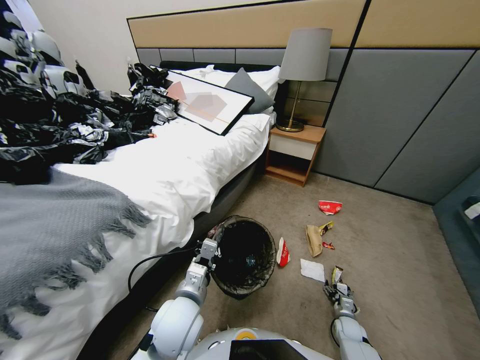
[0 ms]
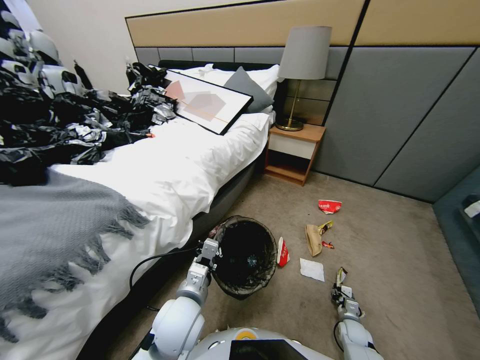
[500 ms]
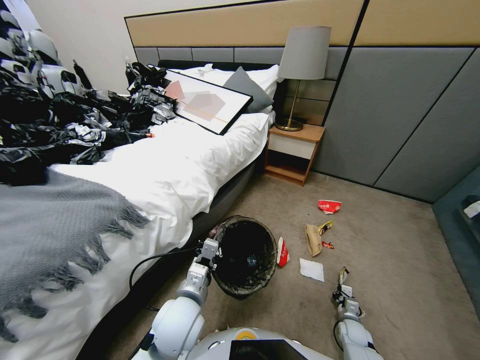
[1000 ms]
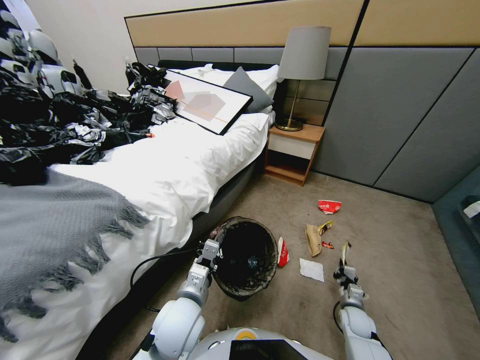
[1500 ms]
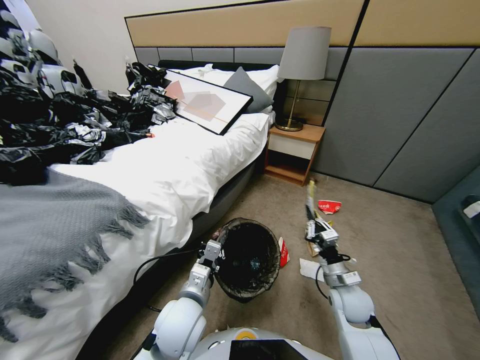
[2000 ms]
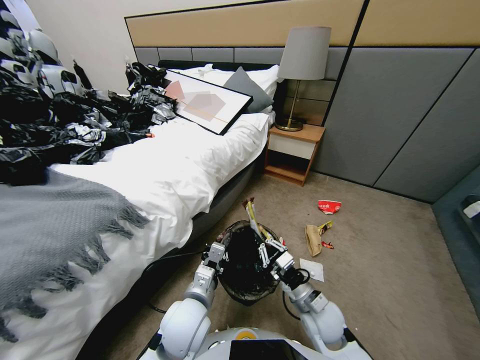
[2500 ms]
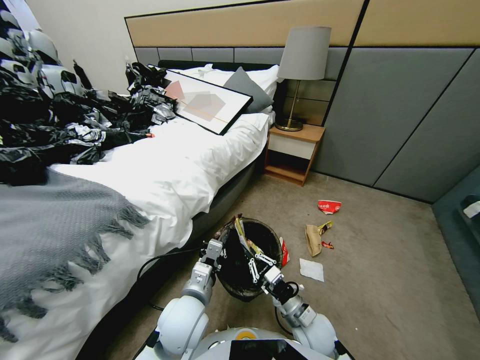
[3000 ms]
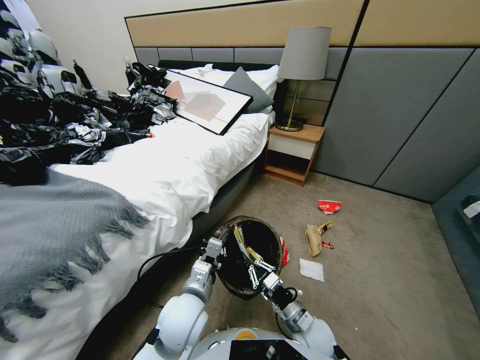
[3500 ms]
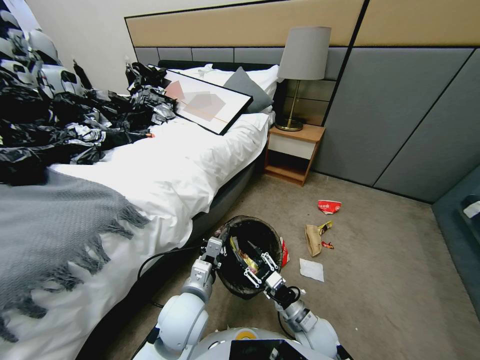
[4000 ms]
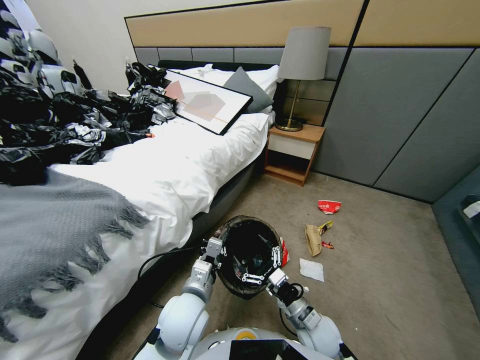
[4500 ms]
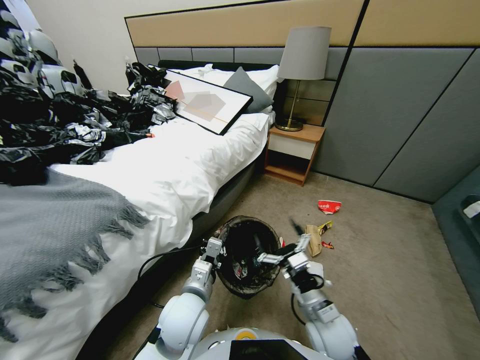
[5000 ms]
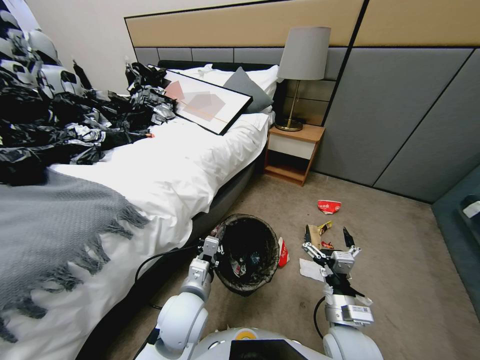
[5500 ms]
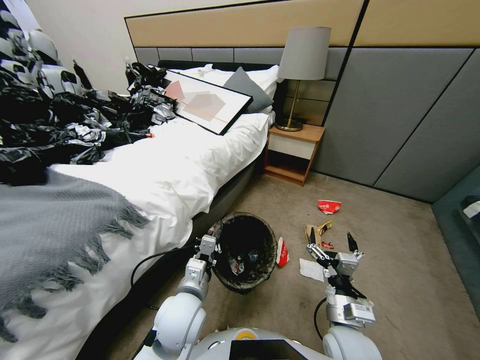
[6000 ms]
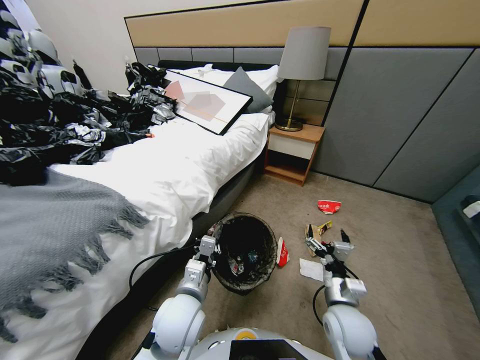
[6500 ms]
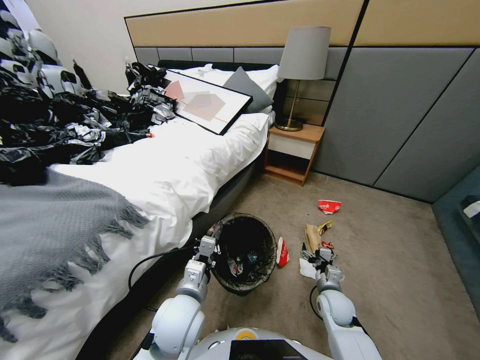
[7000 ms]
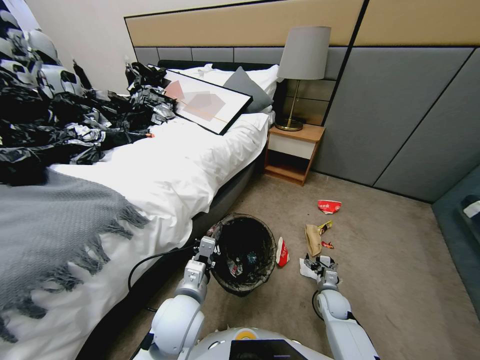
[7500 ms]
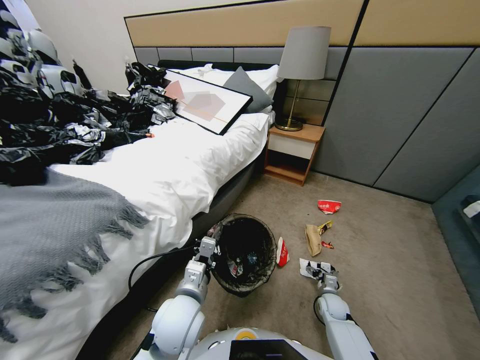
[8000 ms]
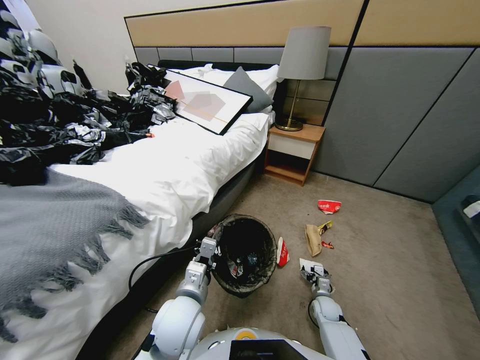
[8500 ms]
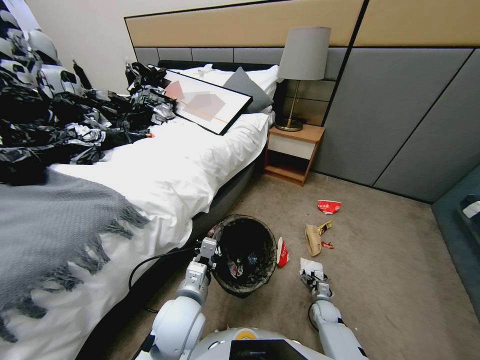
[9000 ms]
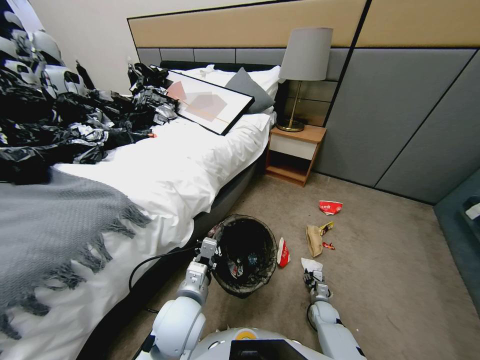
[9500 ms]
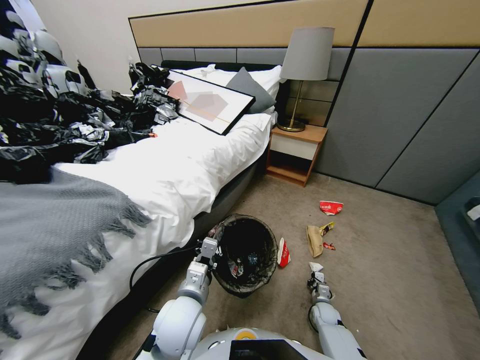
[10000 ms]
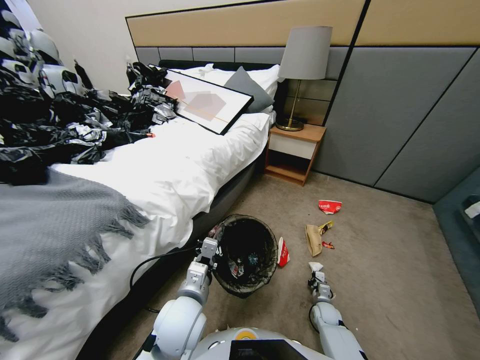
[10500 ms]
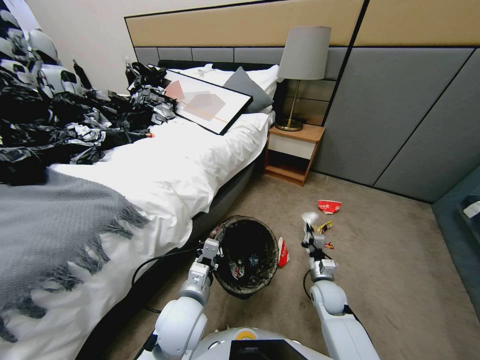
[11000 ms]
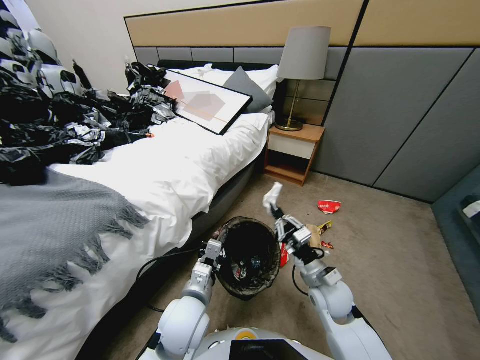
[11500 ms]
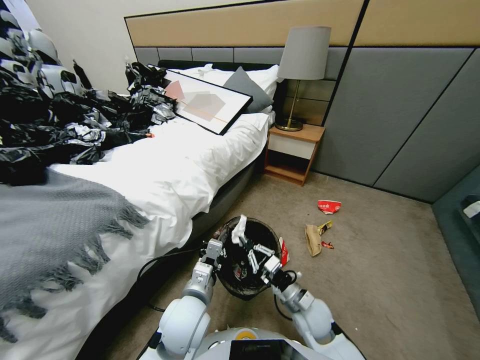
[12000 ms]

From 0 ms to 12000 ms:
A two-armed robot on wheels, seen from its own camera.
Task of the whole recording: Pick up the trash bin, then pick up the garbage from the floor and place it into the trash bin.
From 0 ms to 2000 ms: The right gripper is displaced upward and to the left by about 35 cm, and closes.
From 2000 ms to 4000 ms: The right gripper moves downward, to the left and backward, about 10 cm, and opens its fingers.
From 4000 ms to 6000 ms: The right gripper heads upward, covering about 10 cm, and opens.
From 6000 ms to 8000 ms: The right gripper travels downward, forward and to the right by about 30 cm.
From 8000 ms to 10000 ms: The right gripper heads downward, covering about 5 cm, and closes up.
From 10000 ms to 12000 ms: The right gripper is displaced upward and to the left by some 25 cm.

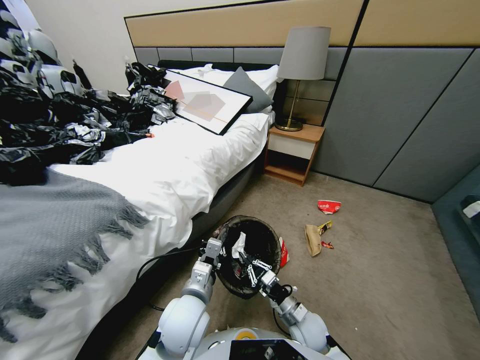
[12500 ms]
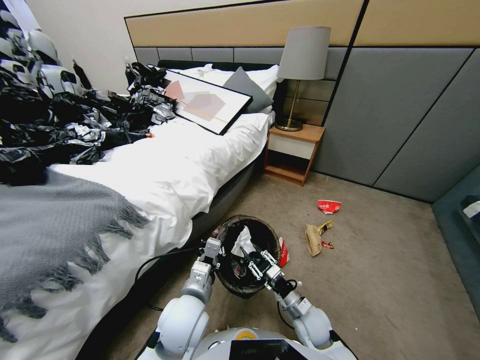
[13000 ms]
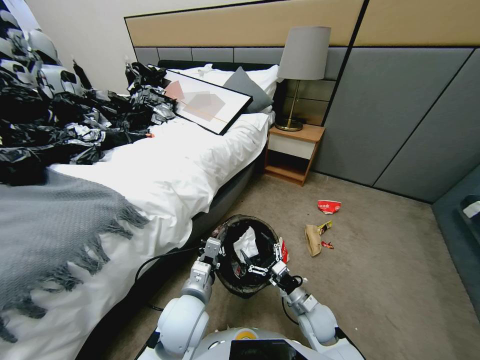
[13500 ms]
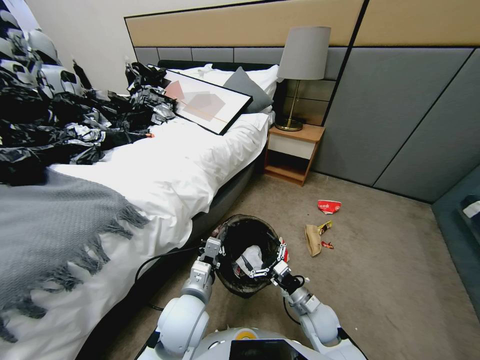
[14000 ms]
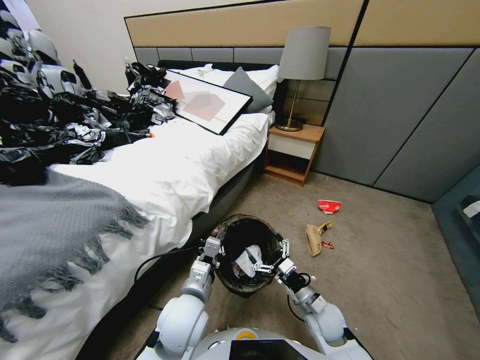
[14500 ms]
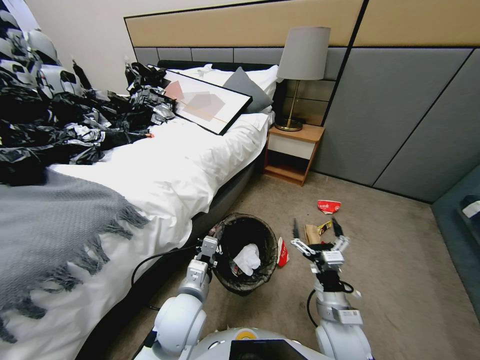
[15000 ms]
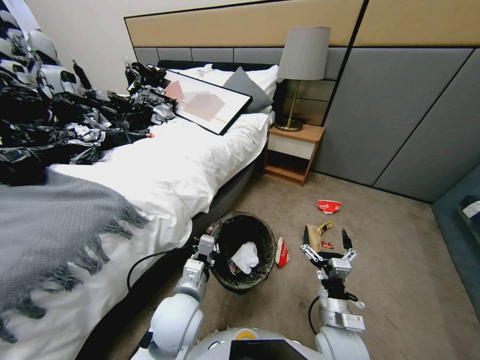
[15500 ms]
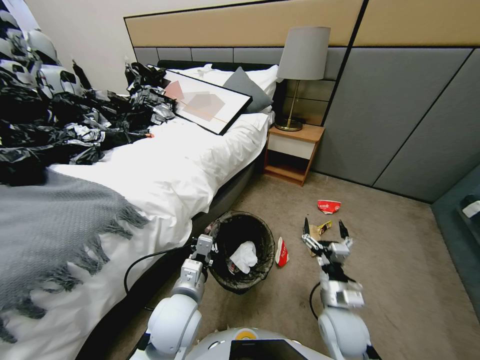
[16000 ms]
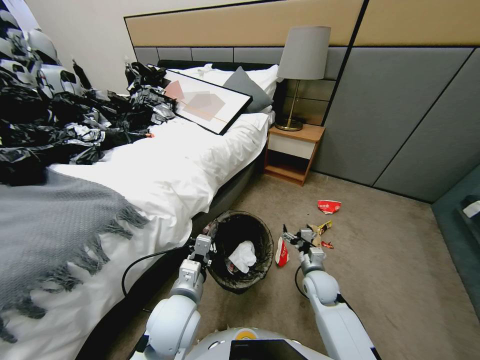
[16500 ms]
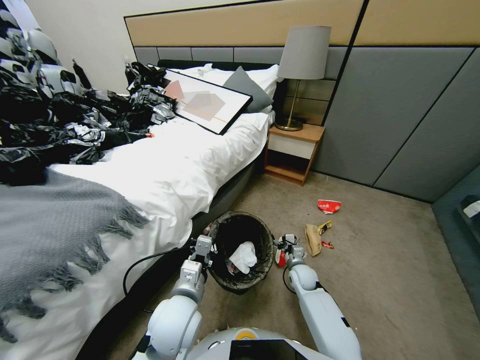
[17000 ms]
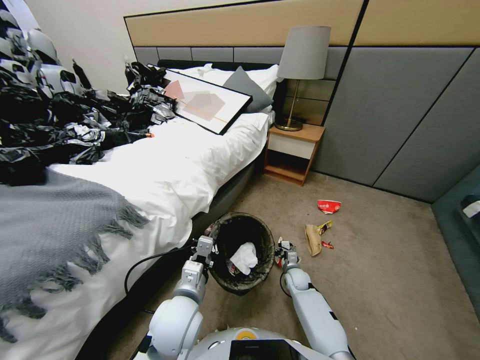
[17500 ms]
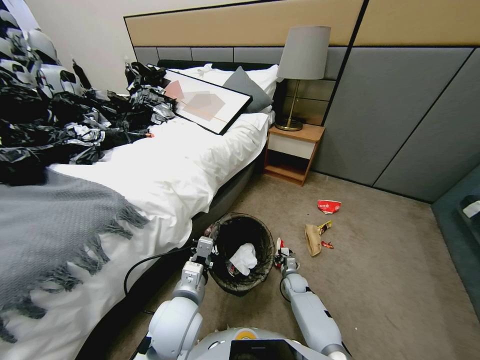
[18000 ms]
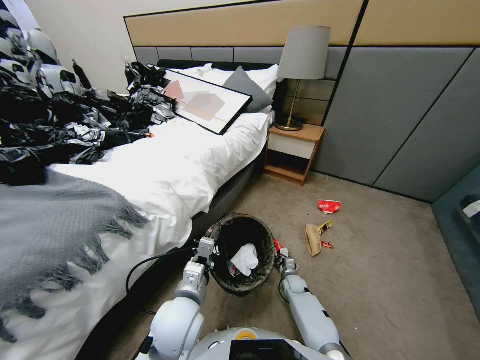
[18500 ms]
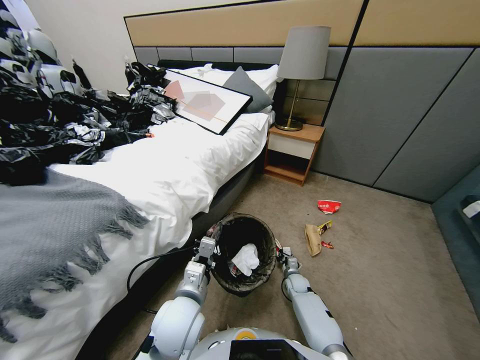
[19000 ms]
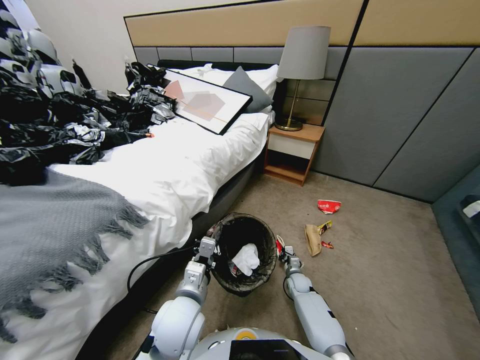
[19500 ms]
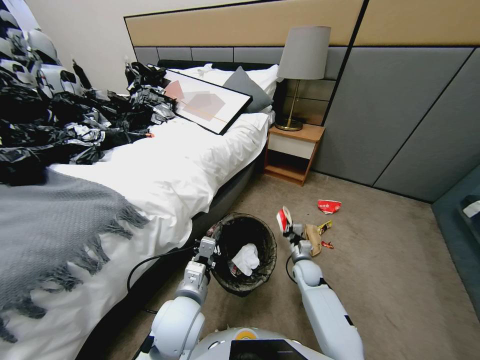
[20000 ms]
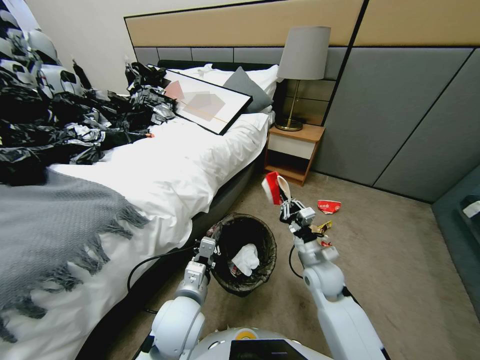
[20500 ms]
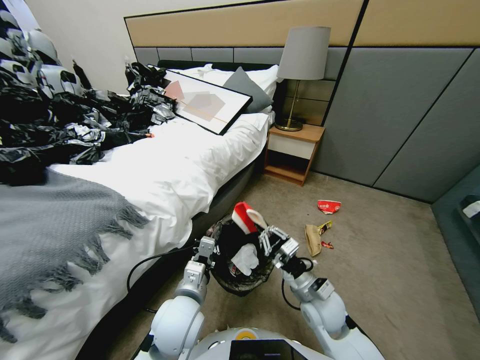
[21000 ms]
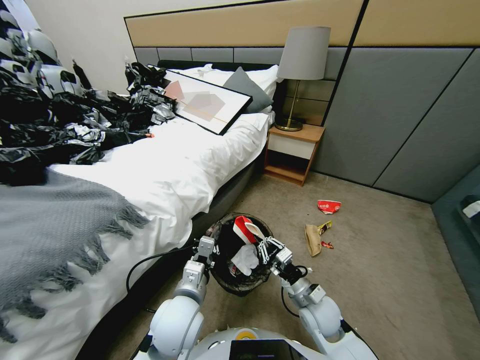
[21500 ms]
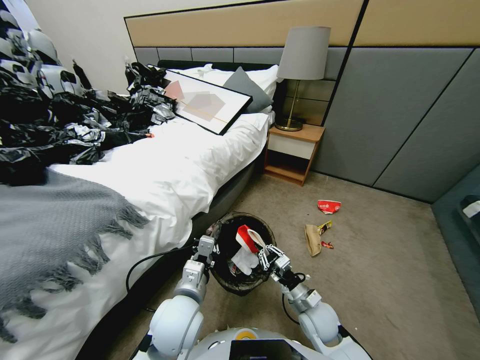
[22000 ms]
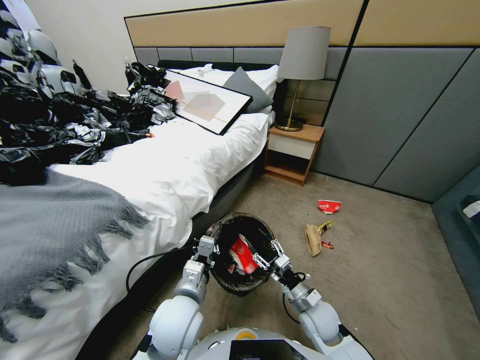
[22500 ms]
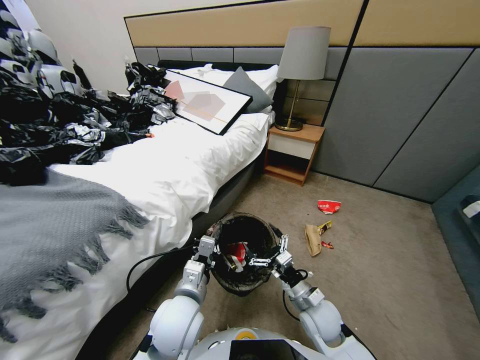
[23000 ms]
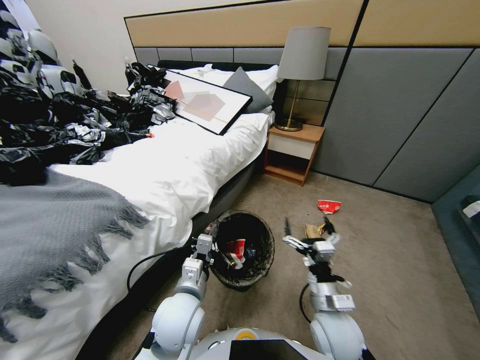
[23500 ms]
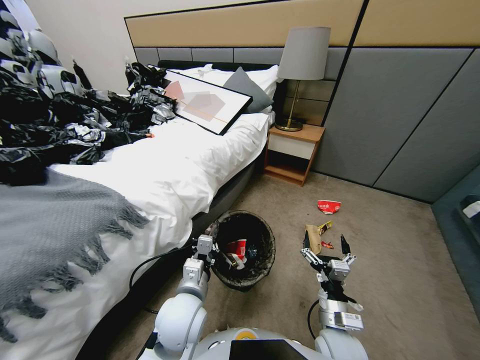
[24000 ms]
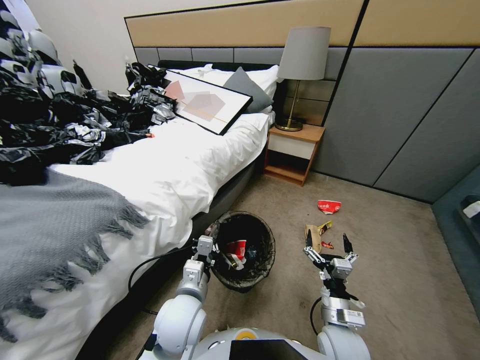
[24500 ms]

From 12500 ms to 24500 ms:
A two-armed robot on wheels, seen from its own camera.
Task of the whole recording: Pick up the trash bin, then pick up the garbage from the floor and place it into the trash bin.
From 12500 ms to 14500 ms: The right gripper goes some 5 cm upward, and opens up.
From 14500 ms to 16500 ms: The right gripper heads forward, covering some 10 cm.
From 16500 ms to 18500 ms: The right gripper is displaced downward by some 20 cm, and closes.
From 18500 ms to 20500 ms: The right gripper heads upward, covering about 30 cm, and closes up.
From 20500 ms to 22500 ms: The right gripper heads downward and backward, covering about 10 cm, and opens.
From 22500 ms to 24500 ms: The right gripper moves backward, roughly 5 cm.

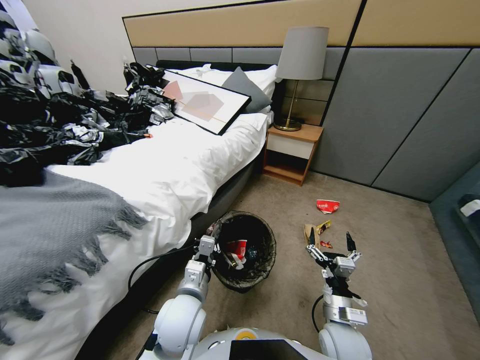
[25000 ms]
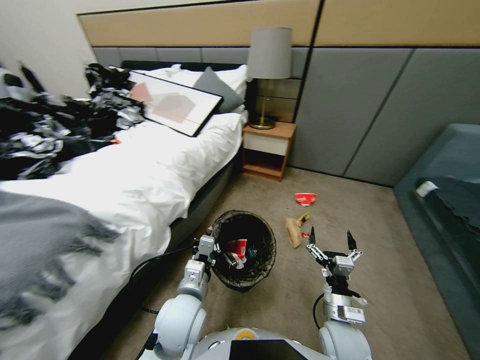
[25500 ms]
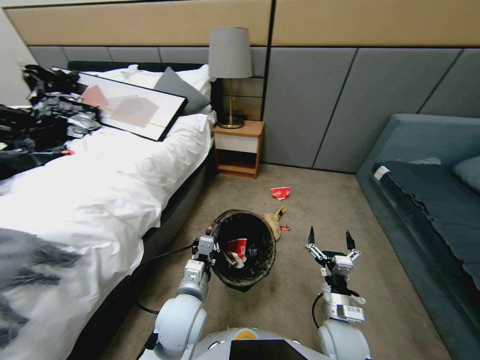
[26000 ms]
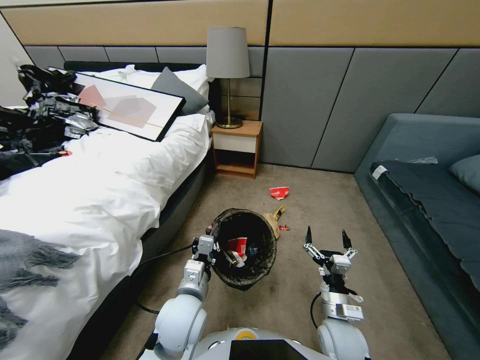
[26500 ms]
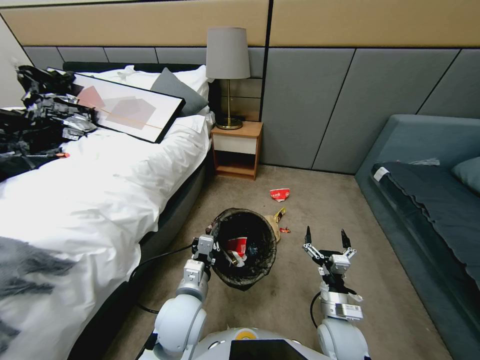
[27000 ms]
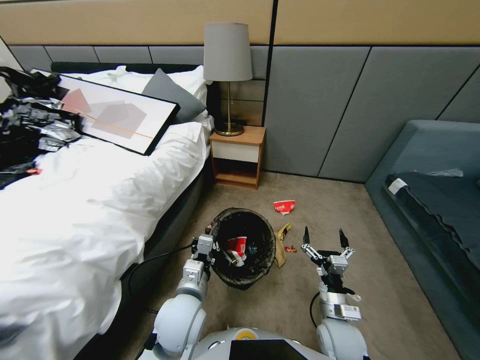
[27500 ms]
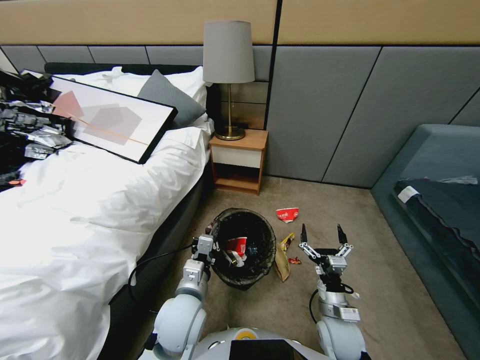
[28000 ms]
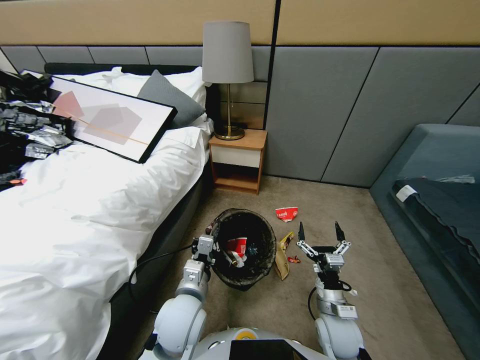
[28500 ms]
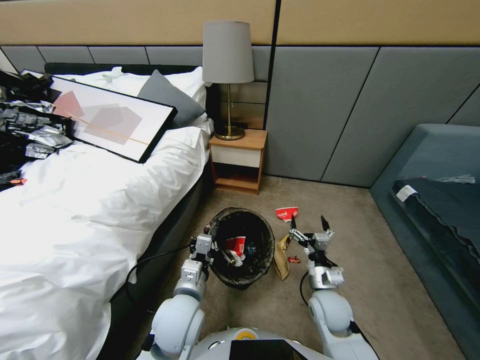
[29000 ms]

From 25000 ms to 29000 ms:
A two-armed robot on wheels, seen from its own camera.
Task of the whole recording: Pick up the trash bin, then pick up the garbage from the floor and place it into the trash bin.
From 27000 ms to 29000 ms: The right gripper travels forward by approximately 10 cm.
